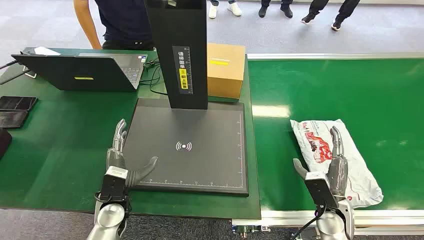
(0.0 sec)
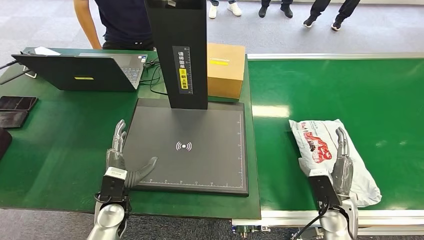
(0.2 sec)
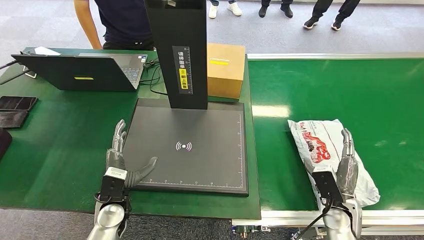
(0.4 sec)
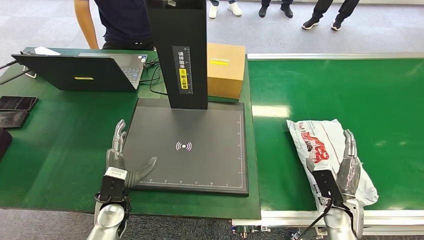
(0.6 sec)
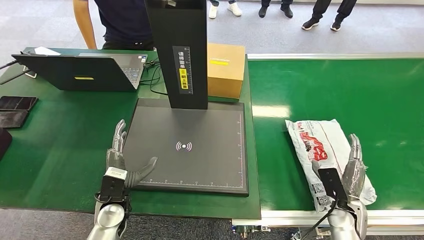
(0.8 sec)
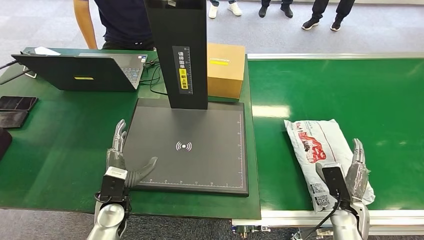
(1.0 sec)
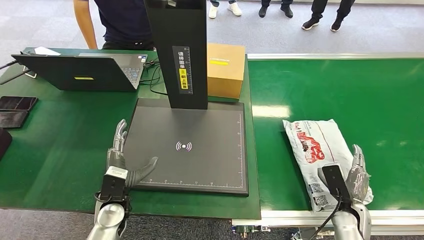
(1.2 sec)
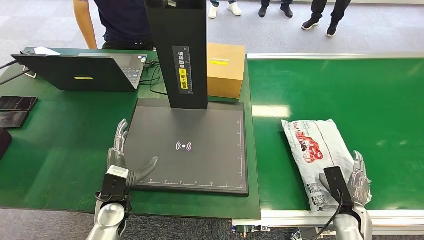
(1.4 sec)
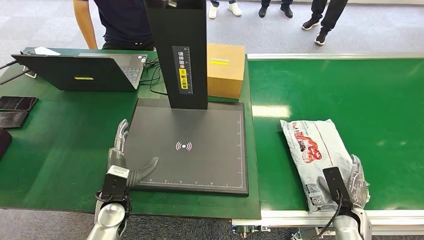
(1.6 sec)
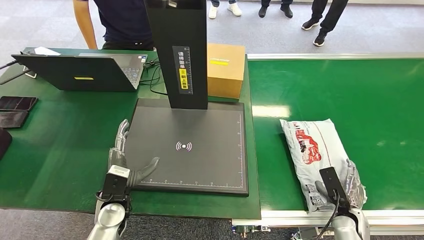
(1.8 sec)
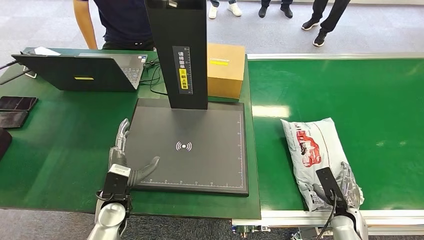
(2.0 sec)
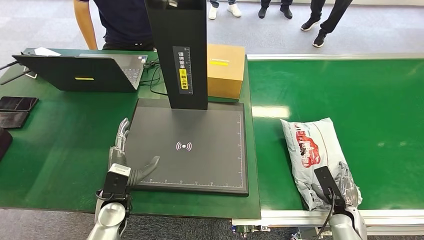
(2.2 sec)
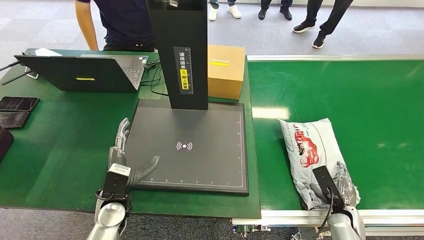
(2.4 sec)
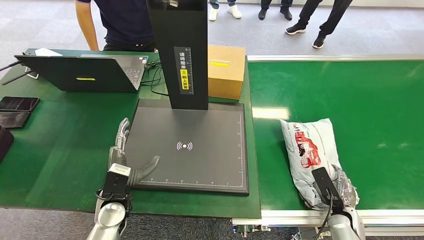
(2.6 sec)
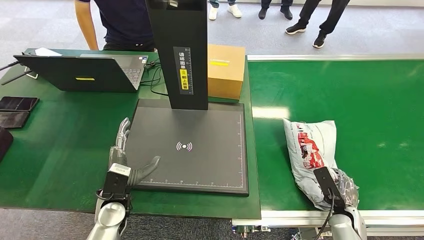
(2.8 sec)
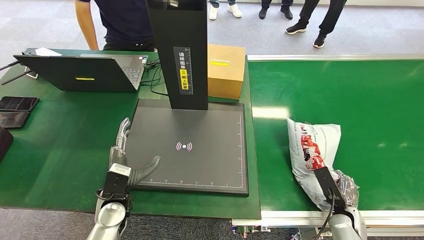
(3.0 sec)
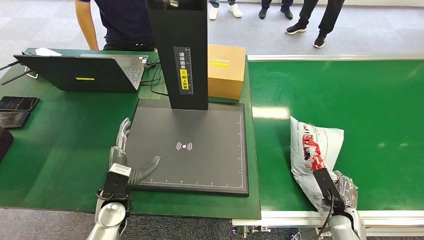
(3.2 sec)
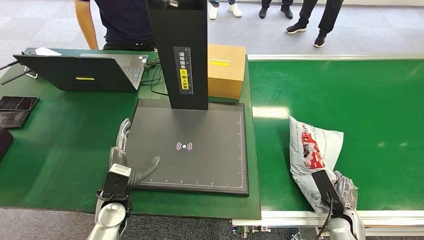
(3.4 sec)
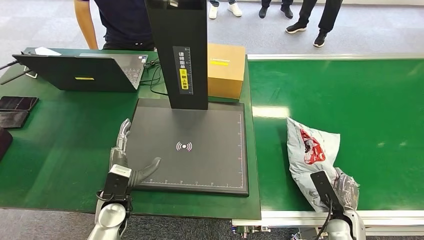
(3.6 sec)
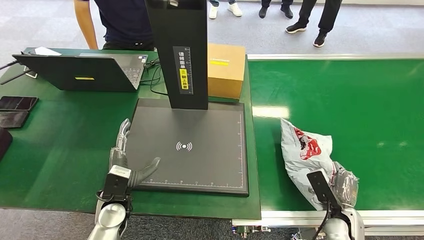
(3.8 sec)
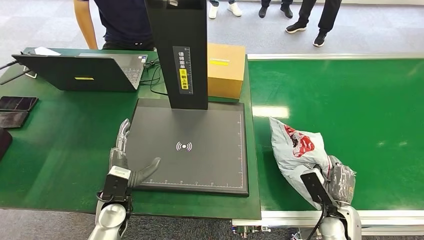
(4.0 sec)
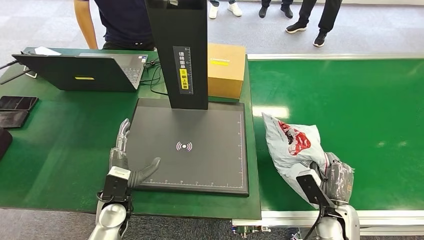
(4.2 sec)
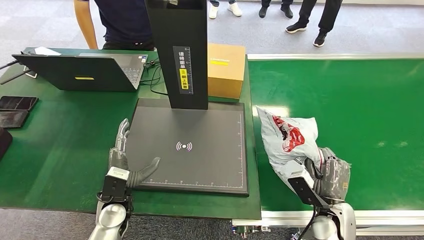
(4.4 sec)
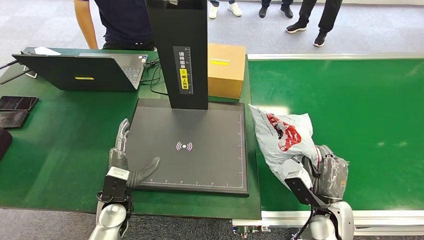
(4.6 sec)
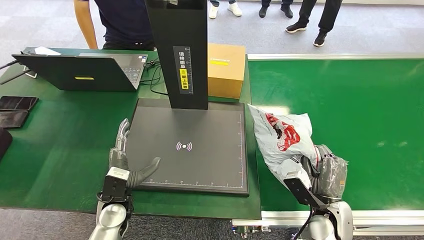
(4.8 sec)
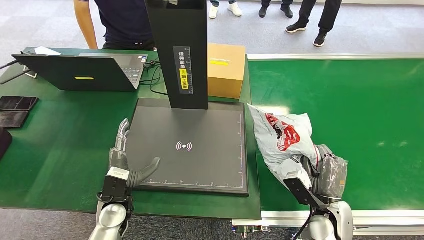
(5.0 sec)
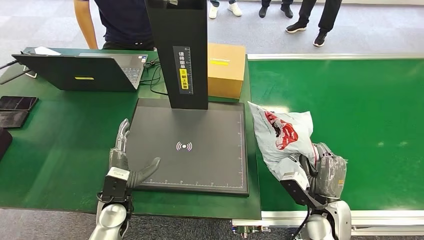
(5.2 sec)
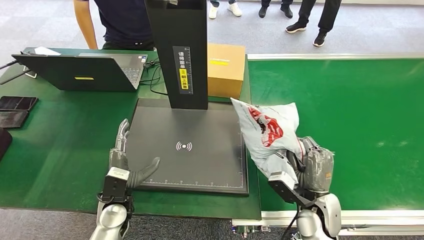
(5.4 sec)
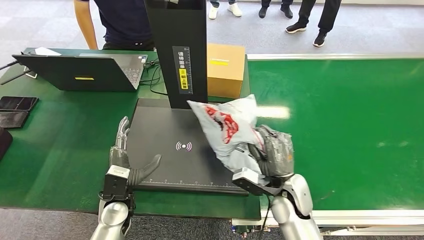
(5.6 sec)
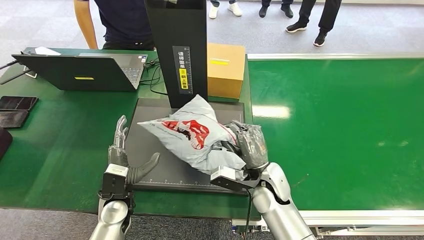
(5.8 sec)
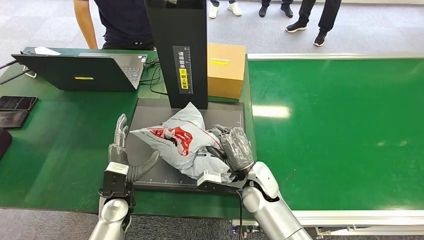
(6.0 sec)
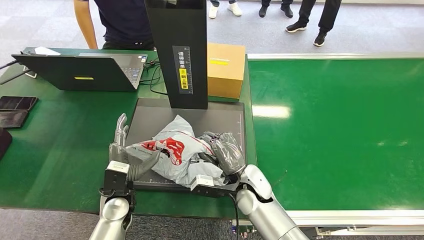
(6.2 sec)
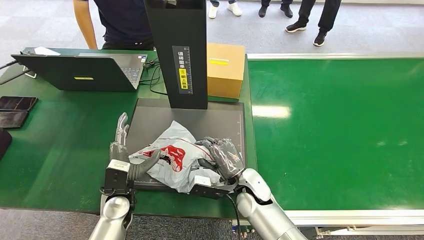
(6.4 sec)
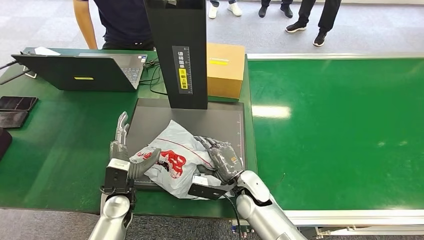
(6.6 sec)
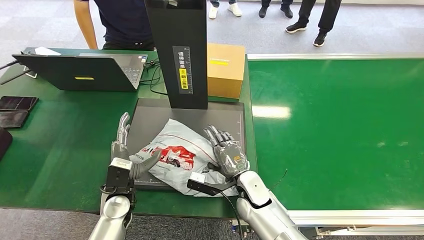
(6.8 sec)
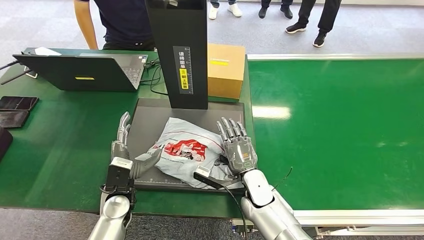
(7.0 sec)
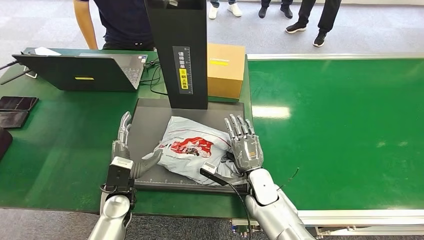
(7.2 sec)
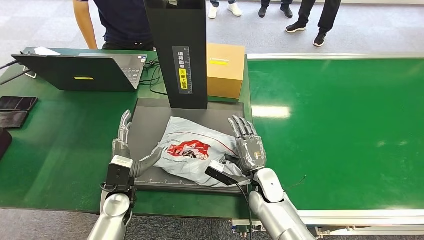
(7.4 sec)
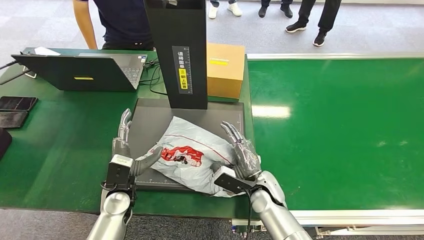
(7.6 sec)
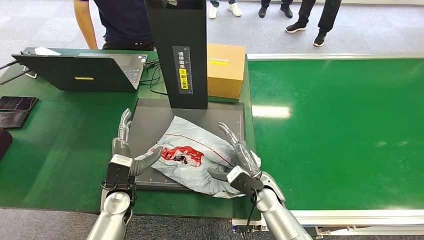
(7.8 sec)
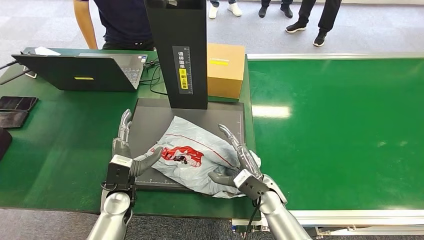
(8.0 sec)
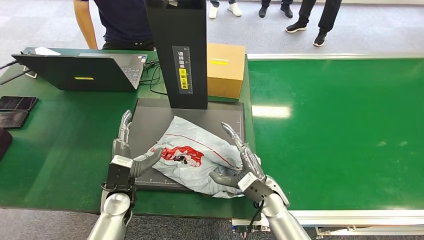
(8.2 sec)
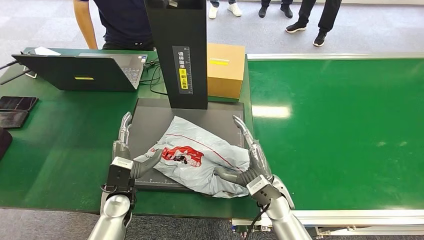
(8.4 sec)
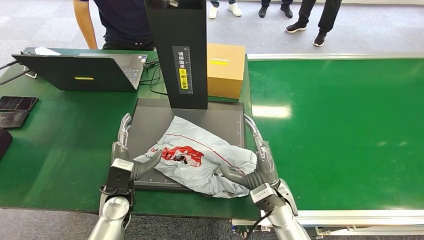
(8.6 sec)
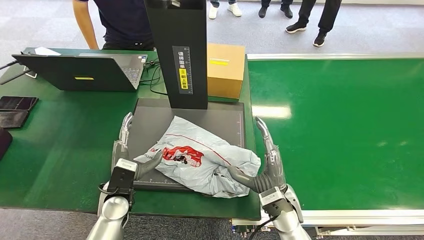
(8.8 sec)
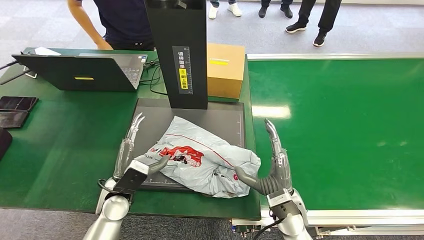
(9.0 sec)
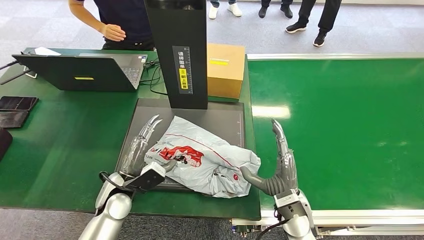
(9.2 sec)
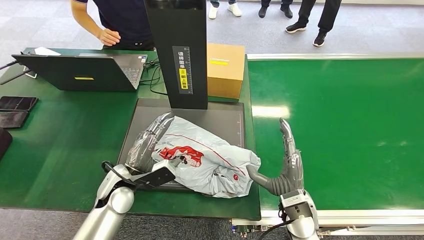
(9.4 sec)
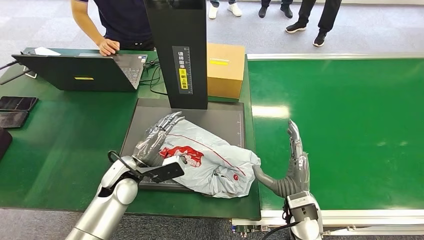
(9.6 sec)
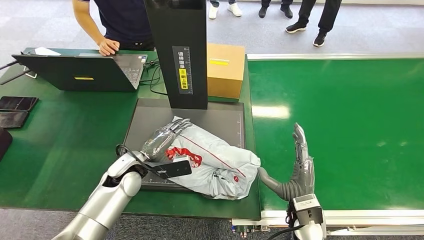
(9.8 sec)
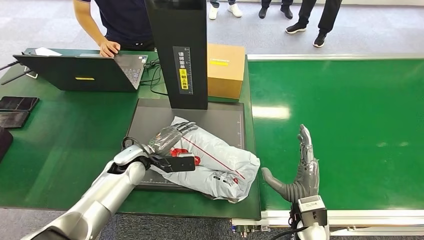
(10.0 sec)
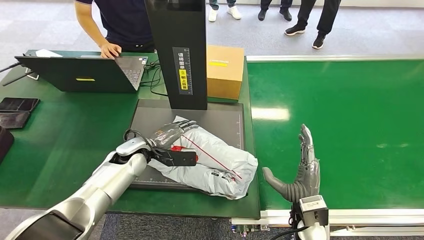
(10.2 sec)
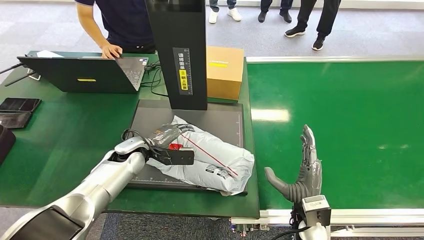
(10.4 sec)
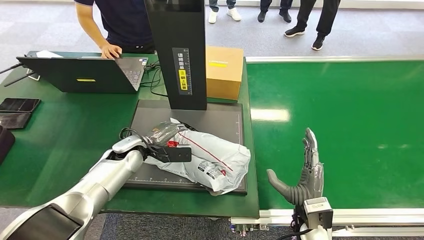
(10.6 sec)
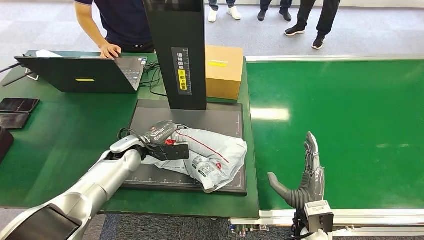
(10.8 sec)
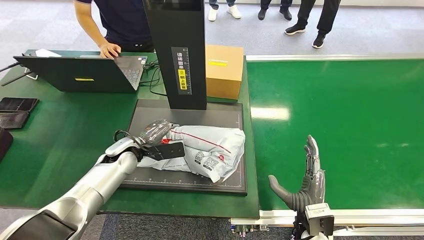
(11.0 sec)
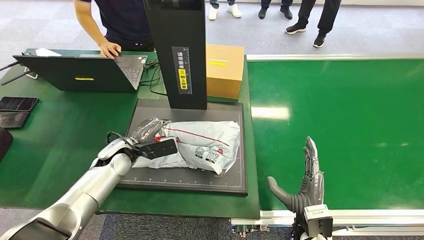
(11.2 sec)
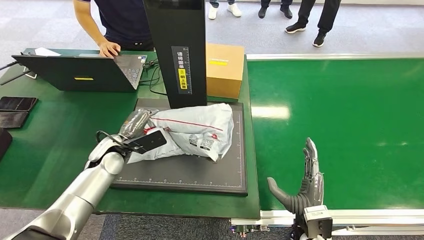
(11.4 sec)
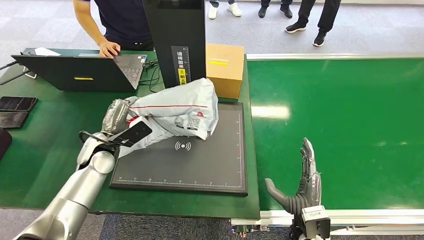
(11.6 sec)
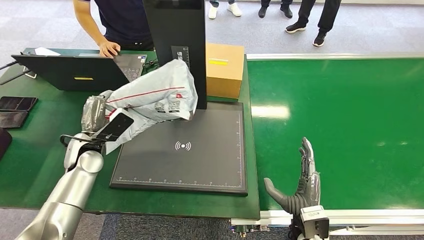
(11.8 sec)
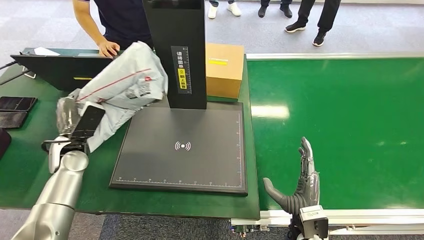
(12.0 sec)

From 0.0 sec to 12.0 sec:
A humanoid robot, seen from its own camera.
Step, from 0.0 sec to 4.8 sec: Pick up the package from the conveyor belt.
Step, from 5.0 sec to 8.0 sec: Place the package onto the inbound machine.
Step, from 8.2 sec to 11.4 sec: Pick up the package from the inbound machine.
From 1.6 sec to 3.0 sec: The hands stay close to where they were, moving slightly.
From 3.0 sec to 4.4 sec: The right hand heads upward and to the left, covering approximately 15 cm.
From 4.4 sec to 6.0 sec: The right hand heads to the left and forward, covering approximately 20 cm.
From 6.0 sec to 7.6 sec: The right hand travels downward by approximately 5 cm.
From 7.6 sec to 9.0 sec: The right hand heads backward, covering about 5 cm.

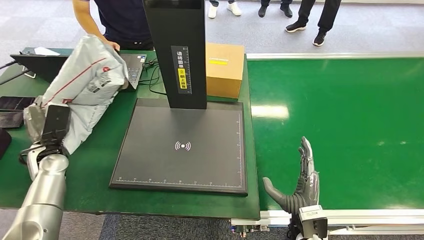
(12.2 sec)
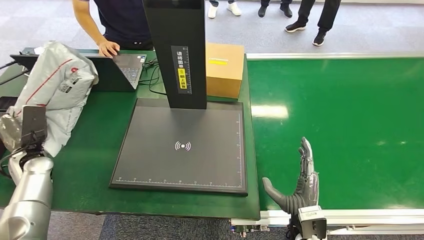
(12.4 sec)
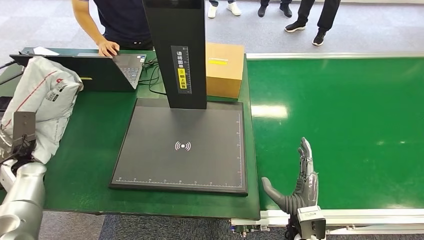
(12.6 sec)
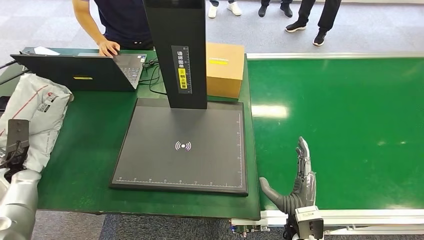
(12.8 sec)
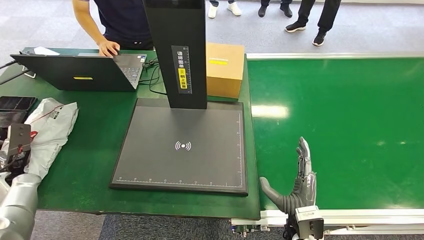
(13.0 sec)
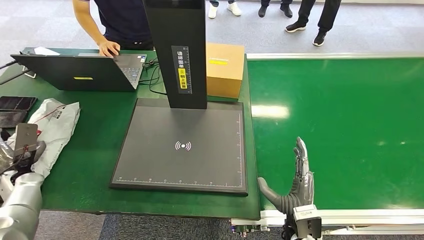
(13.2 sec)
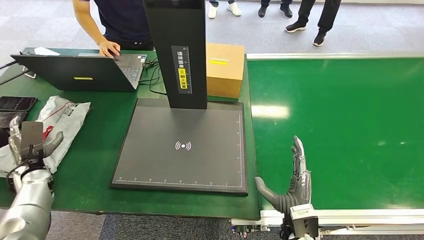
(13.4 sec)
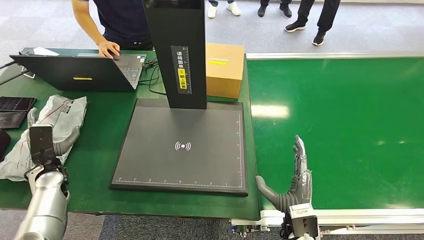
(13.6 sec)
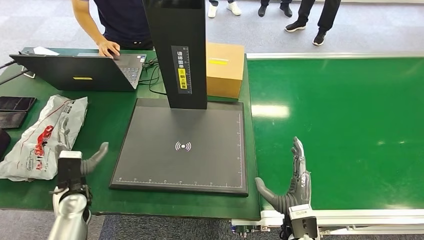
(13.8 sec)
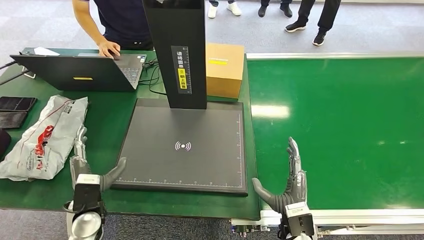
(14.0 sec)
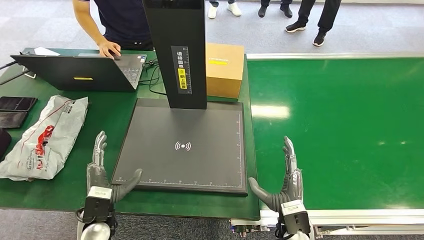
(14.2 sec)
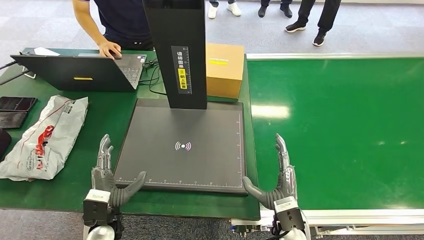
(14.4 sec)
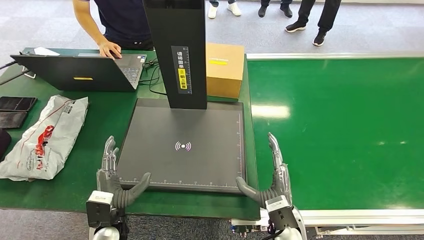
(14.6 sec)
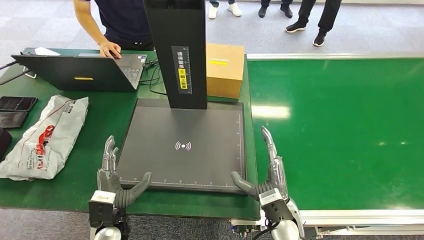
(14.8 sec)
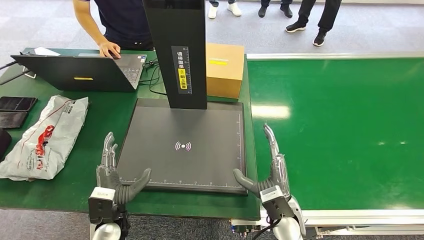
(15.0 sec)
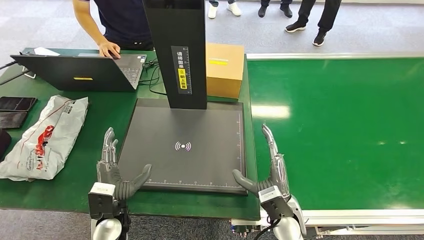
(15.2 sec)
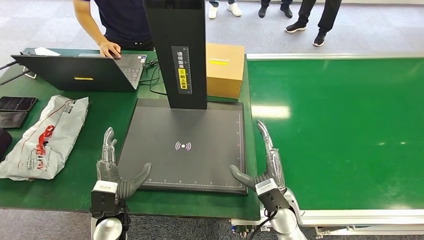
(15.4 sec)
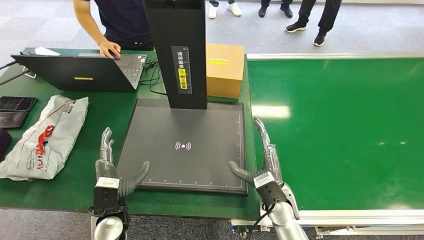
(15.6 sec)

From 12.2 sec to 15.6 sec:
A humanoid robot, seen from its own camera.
Step, from 12.2 sec to 15.6 sec: Place the package into the parcel locker.
From 12.2 sec to 13.8 sec: The left hand heads backward and downward, covering about 10 cm, and travels to the left and back again, roughly 10 cm each way.
From 13.8 sec to 15.6 sec: The left hand heads to the right and backward, covering some 15 cm, while the right hand heads forward, covering approximately 5 cm.
